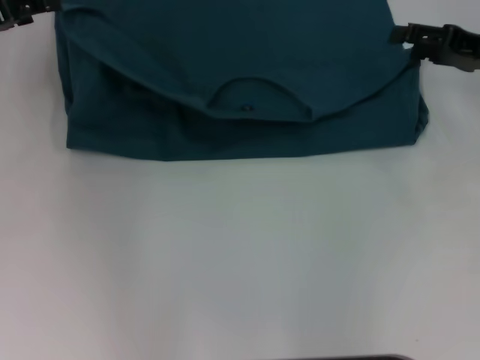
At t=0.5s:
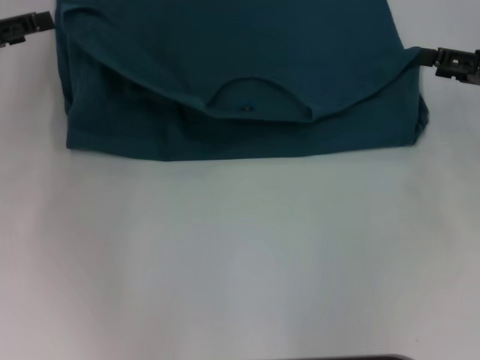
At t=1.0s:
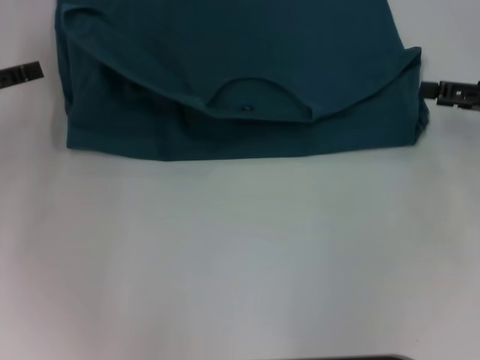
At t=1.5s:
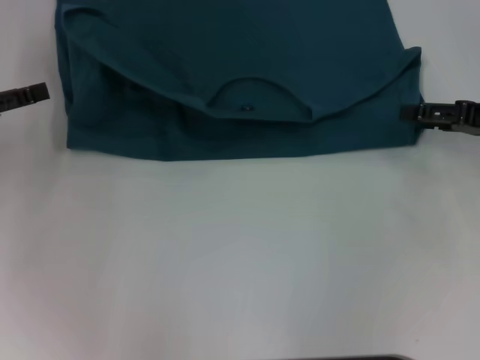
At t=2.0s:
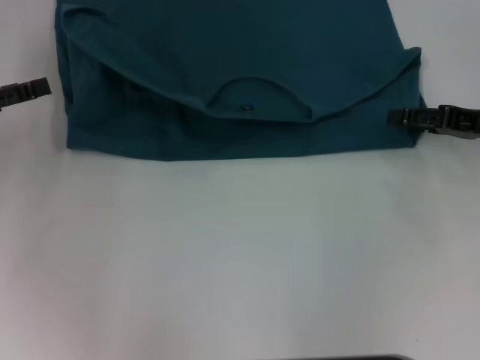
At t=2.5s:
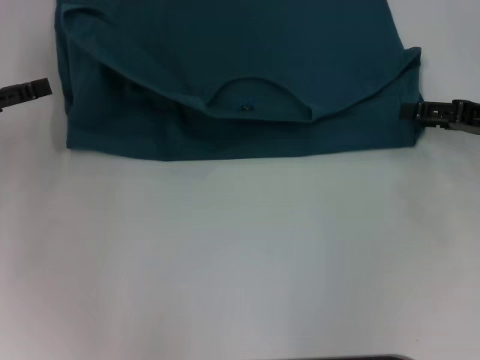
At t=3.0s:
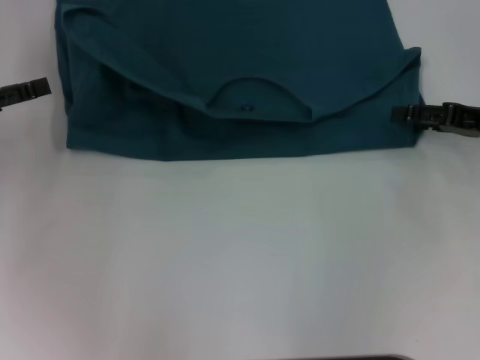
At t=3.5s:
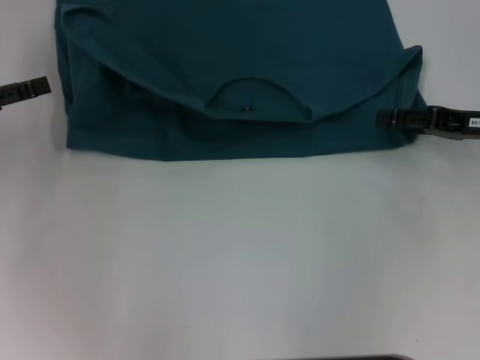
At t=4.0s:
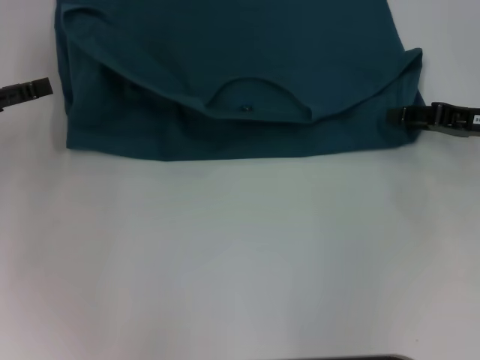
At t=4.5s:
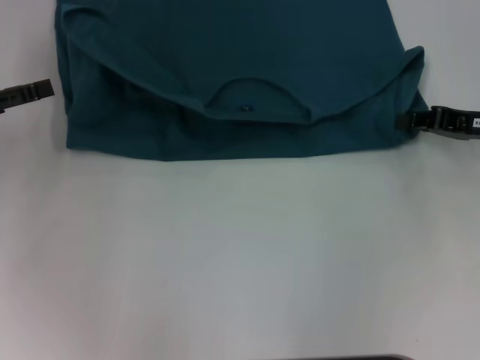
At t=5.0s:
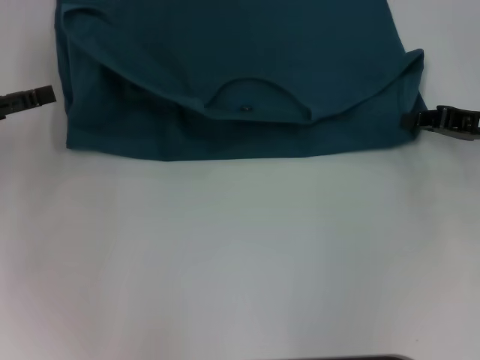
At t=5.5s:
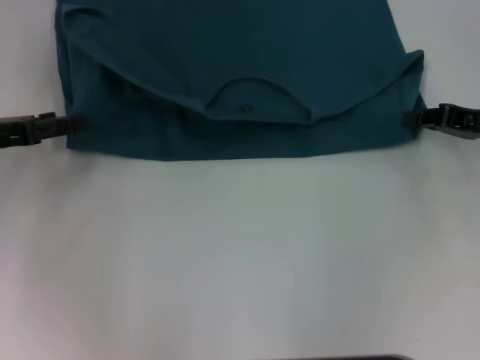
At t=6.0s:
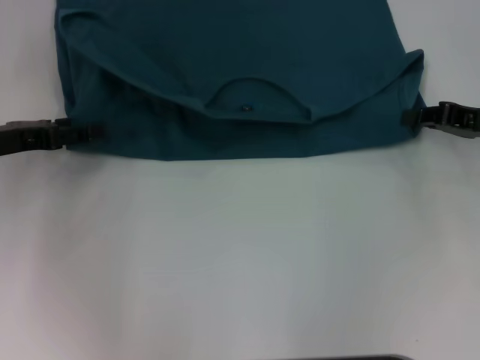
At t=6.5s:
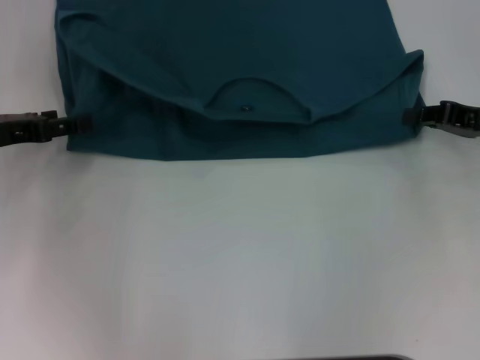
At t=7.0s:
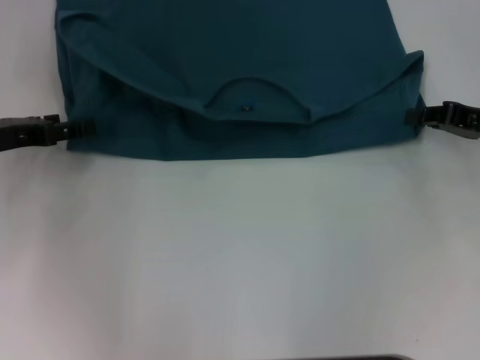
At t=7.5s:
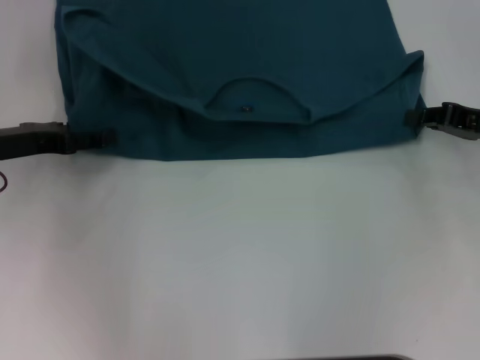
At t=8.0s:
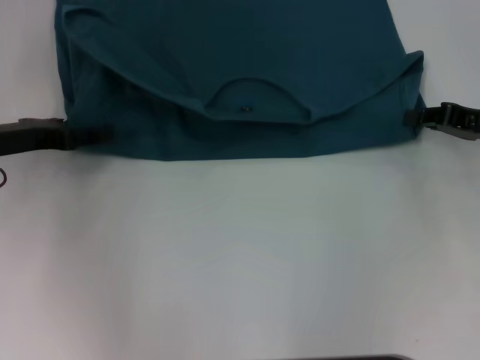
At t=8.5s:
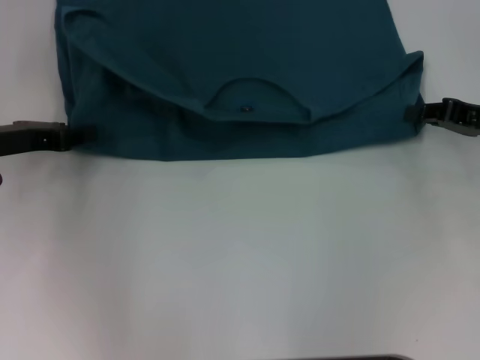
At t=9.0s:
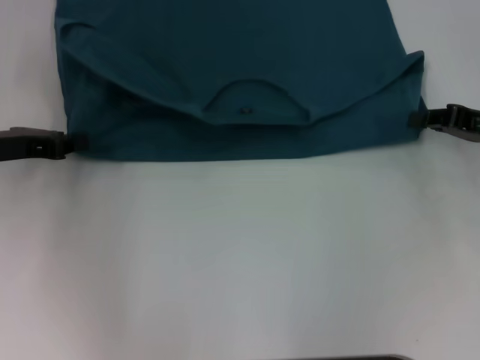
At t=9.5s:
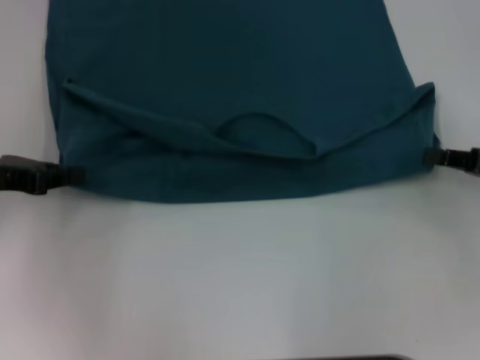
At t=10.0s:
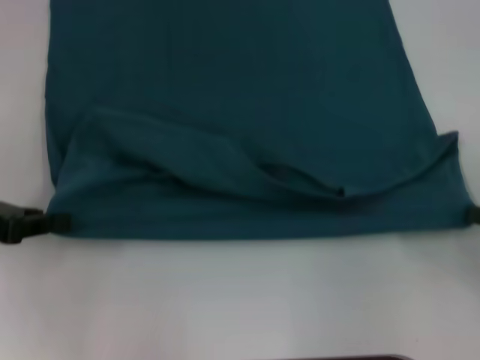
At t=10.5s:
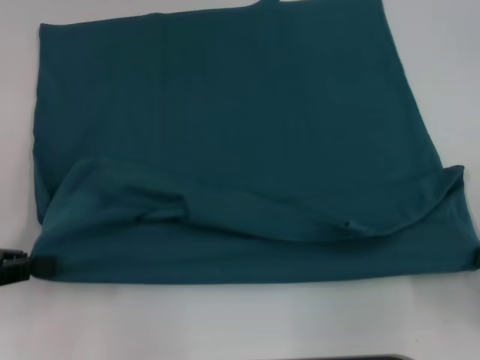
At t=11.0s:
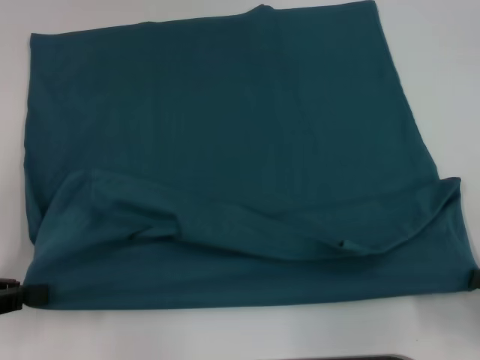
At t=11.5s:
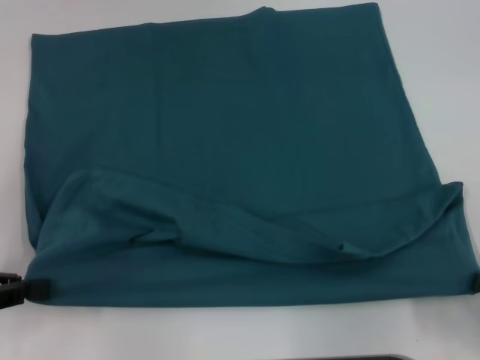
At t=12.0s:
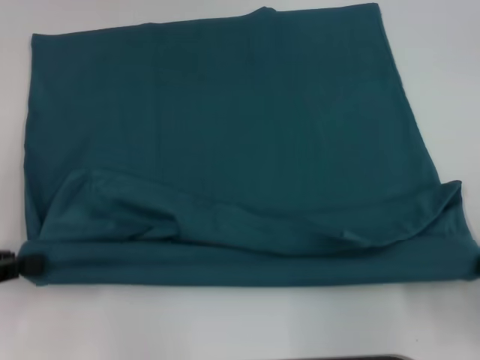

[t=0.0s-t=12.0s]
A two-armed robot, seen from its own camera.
Step, t=0.5s to t=11.0s: Pull the clothes with your left hand.
Step, t=0.5s to t=11.0s: Pull the clothes with your right hand.
t=0.0s to t=2.0s: The right gripper shifts by approximately 5 cm. Meanwhile the left gripper is displaced backward by about 5 cm.
t=2.0s to t=4.0s: The two grippers keep their place.
t=4.0s to t=6.0s: The left gripper shifts by approximately 5 cm.
t=8.0s to t=10.0s: The left gripper moves backward, roughly 5 cm, and closes its fingers. The right gripper shifts some 15 cm backward.
t=10.0s to t=12.0s: The left gripper changes place by approximately 5 cm; the right gripper goes approximately 5 cm backward.

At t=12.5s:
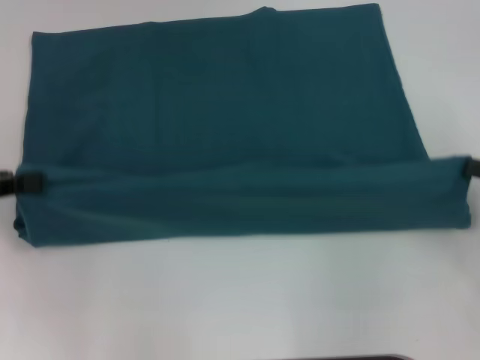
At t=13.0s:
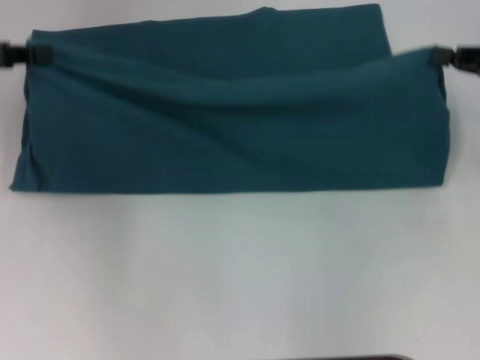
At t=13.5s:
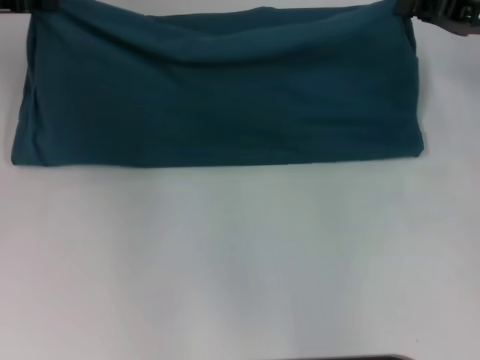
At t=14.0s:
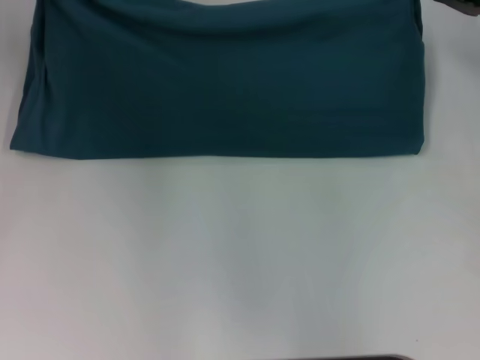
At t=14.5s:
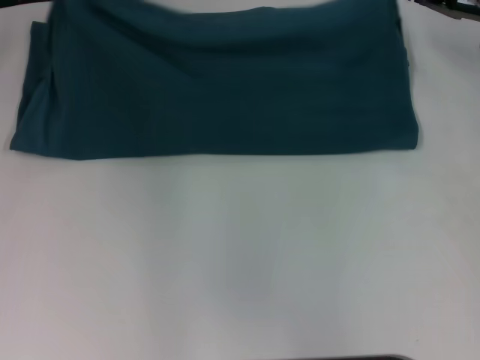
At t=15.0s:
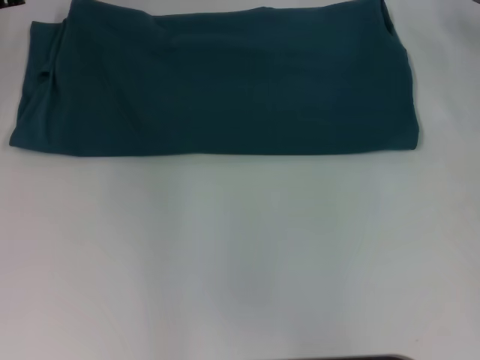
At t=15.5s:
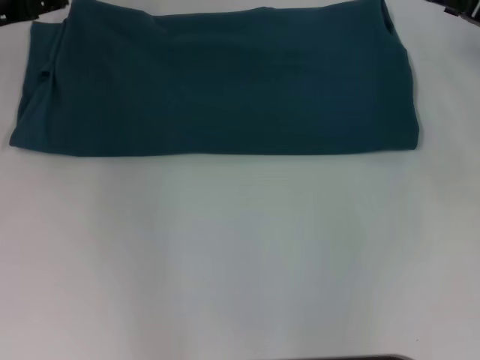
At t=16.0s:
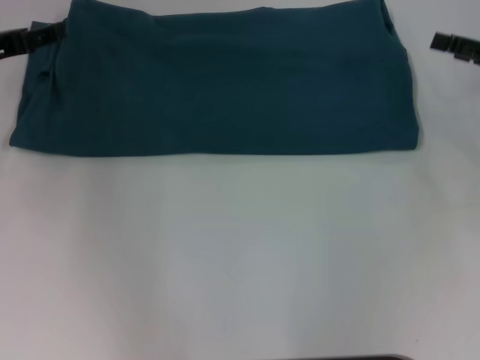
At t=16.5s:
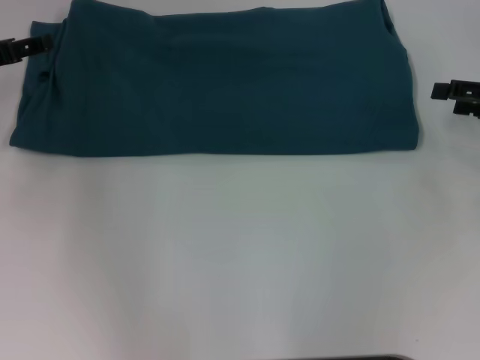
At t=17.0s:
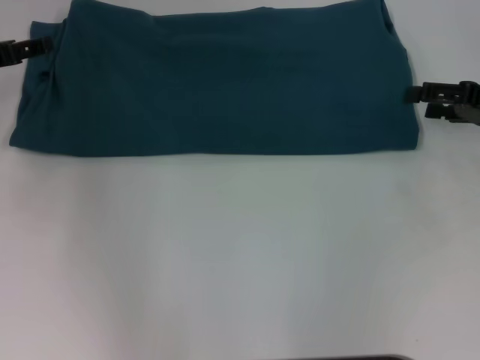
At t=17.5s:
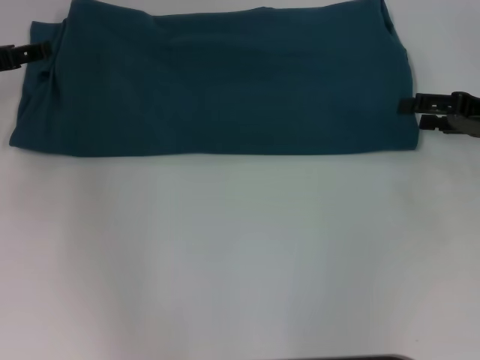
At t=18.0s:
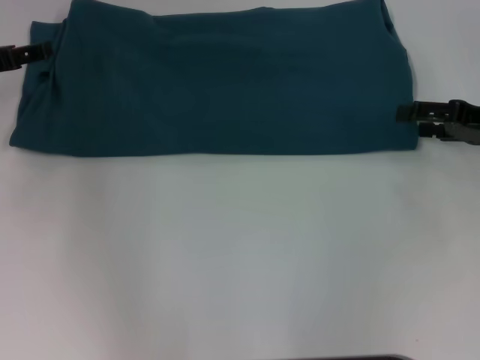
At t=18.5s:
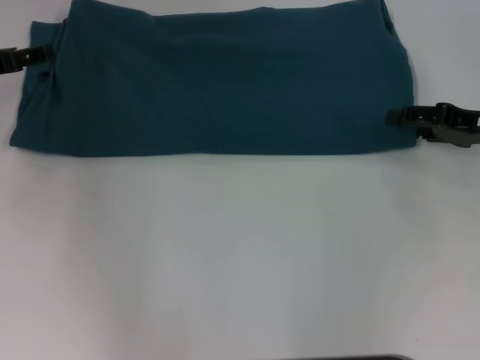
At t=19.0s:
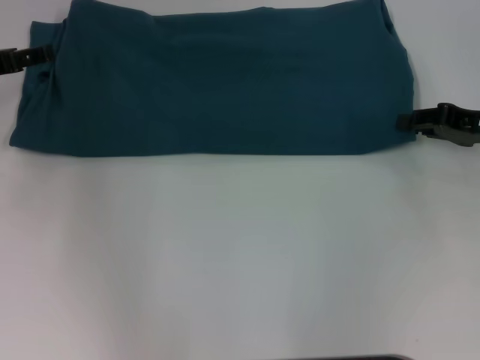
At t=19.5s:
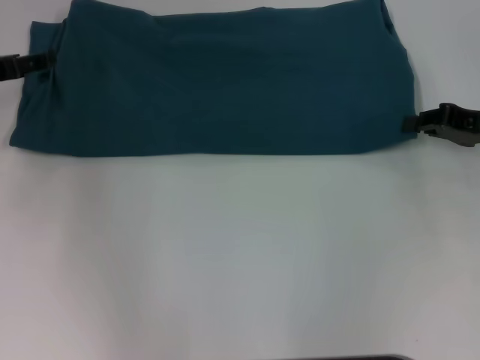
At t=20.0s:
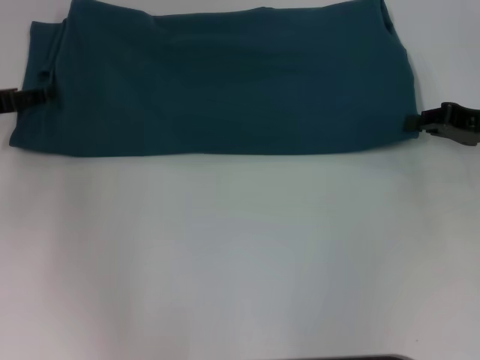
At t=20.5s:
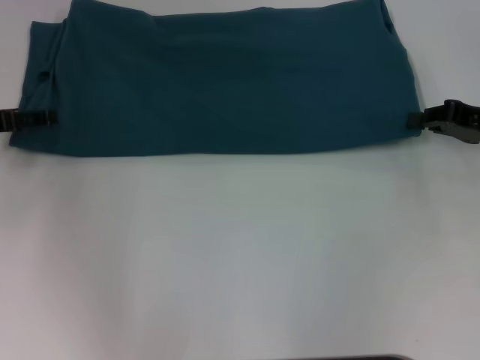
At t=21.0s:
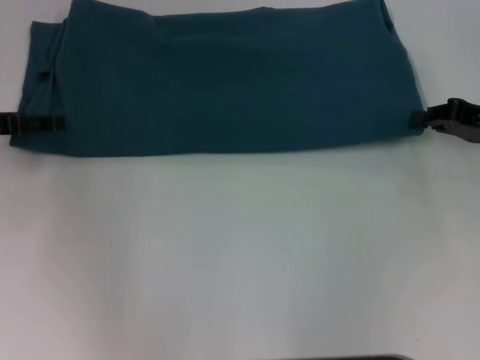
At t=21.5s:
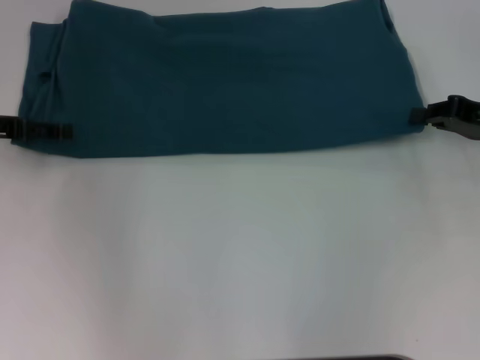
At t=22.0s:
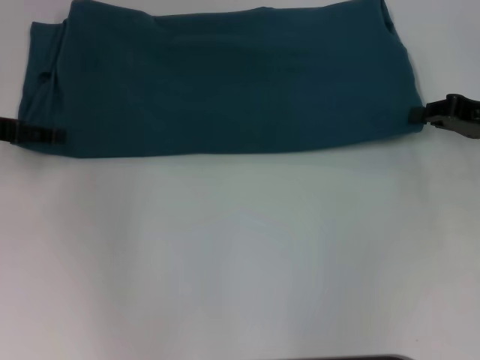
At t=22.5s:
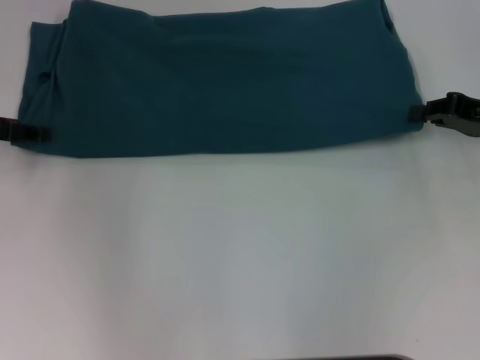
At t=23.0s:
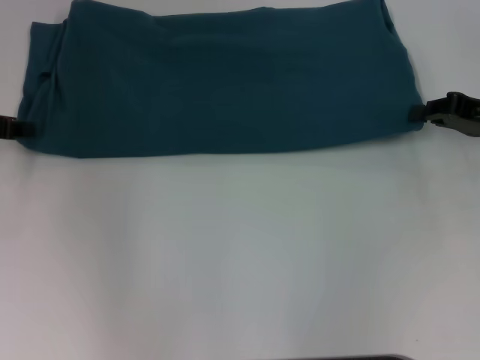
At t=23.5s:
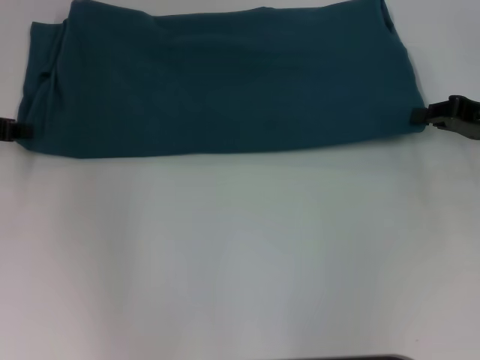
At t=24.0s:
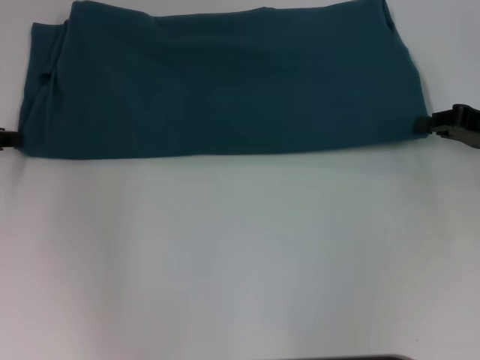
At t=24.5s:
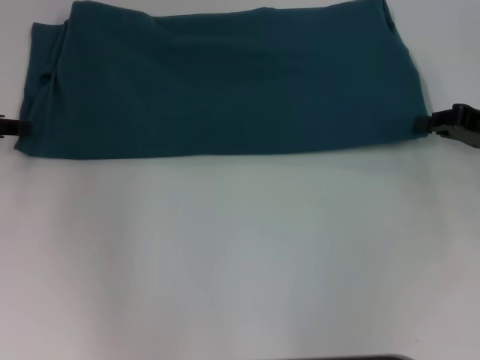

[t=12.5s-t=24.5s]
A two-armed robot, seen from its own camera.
Step, t=12.5s to t=15.0s: Fold the clothes to the left.
Step, t=12.5s to t=15.0s: Fold the clothes to the right.
t=12.5s to t=14.5s: The left gripper shifts roughly 20 cm forward and to the right; the right gripper heads forward and to the left, covering approximately 20 cm.
t=14.5s to t=16.5s: The right gripper moves backward and to the right, roughly 10 cm, and opens up; the left gripper is displaced backward by roughly 5 cm, and opens its fingers.
t=16.5s to t=18.5s: There are only small adjustments of the grippers.
t=18.5s to t=20.5s: The right gripper closes.
t=20.5s to t=22.5s: The grippers make only small movements.
t=22.5s to t=24.5s: The left gripper closes its fingers.

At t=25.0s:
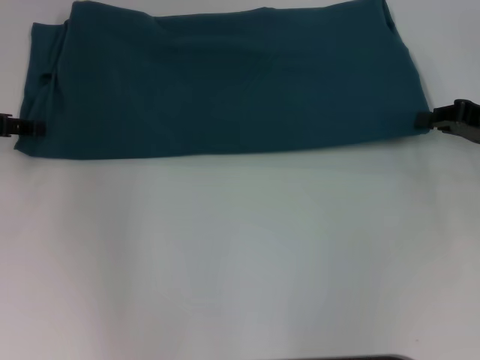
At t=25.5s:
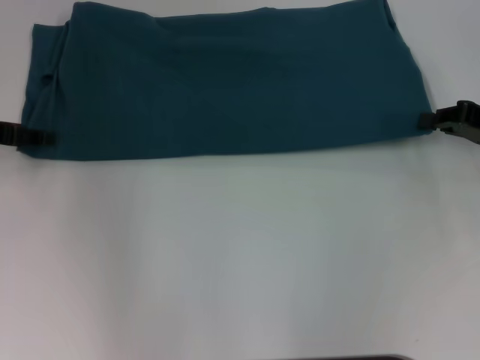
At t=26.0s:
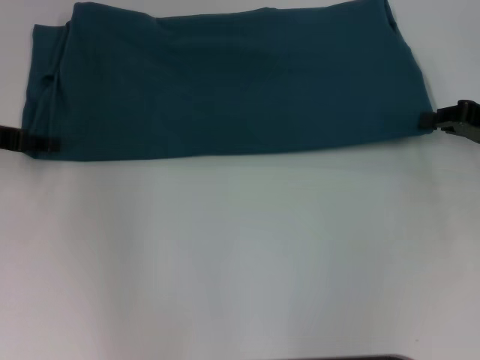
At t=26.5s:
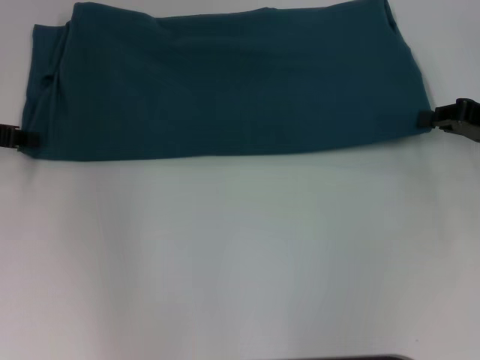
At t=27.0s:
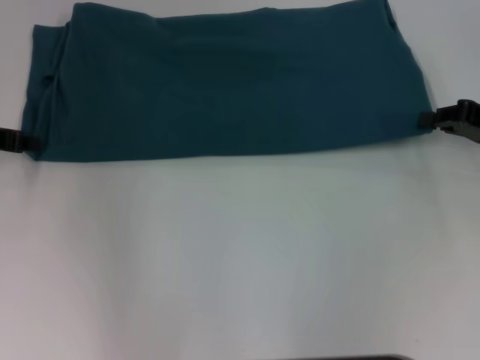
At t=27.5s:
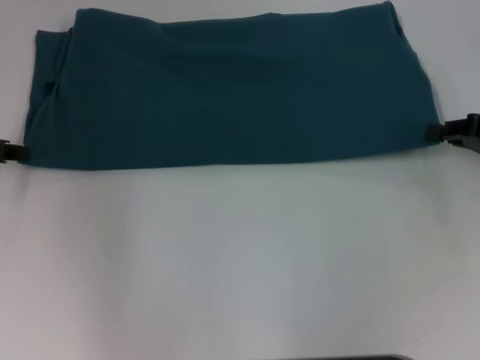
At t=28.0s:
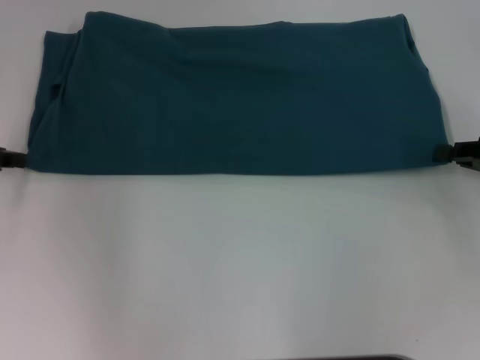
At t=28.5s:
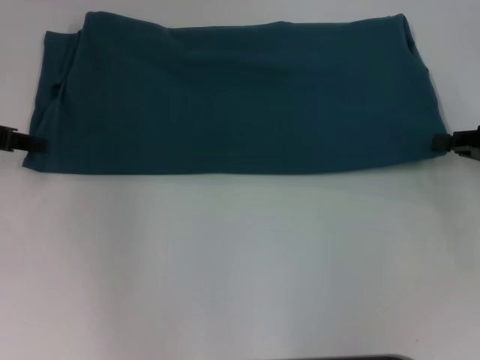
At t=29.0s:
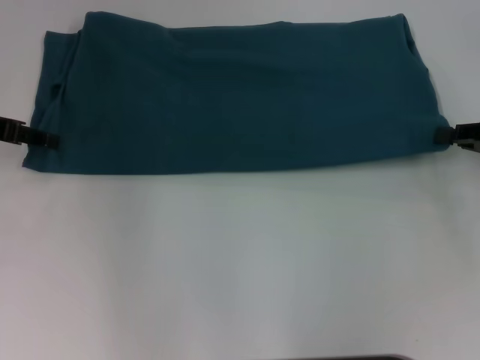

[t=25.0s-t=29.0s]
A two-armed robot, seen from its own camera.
t=25.0s to t=27.0s: The left gripper closes its fingers.
t=27.0s to t=29.0s: The left gripper opens.
